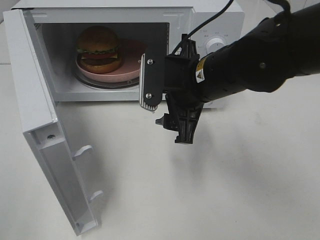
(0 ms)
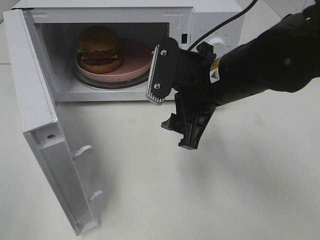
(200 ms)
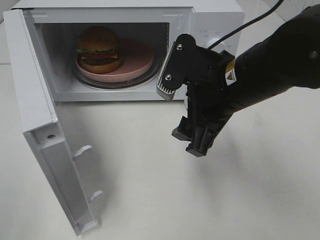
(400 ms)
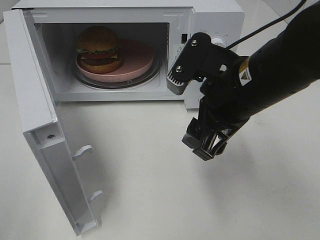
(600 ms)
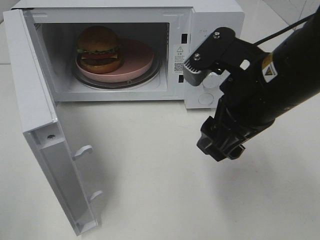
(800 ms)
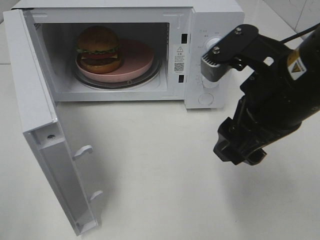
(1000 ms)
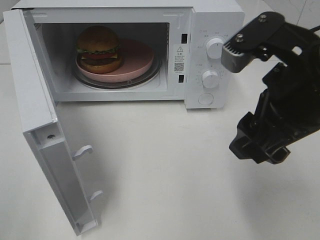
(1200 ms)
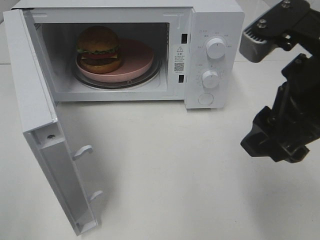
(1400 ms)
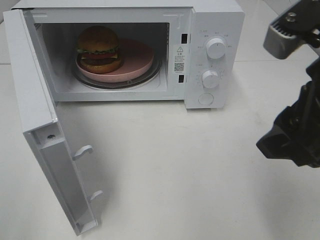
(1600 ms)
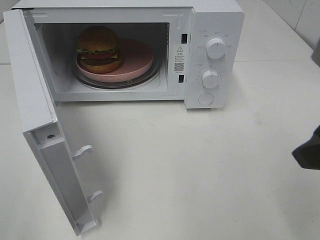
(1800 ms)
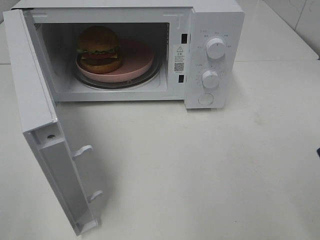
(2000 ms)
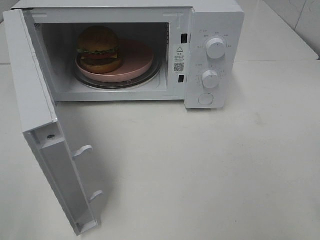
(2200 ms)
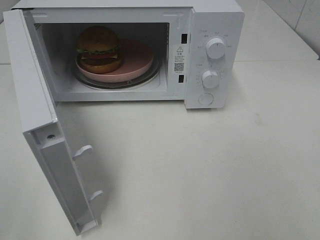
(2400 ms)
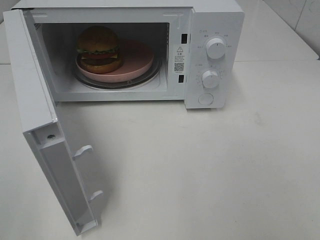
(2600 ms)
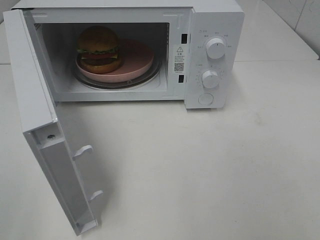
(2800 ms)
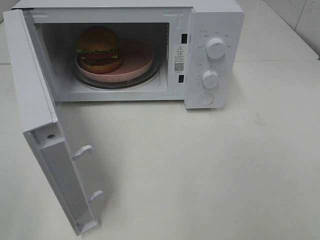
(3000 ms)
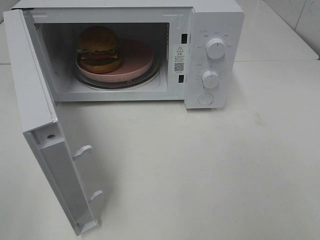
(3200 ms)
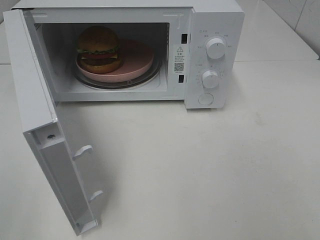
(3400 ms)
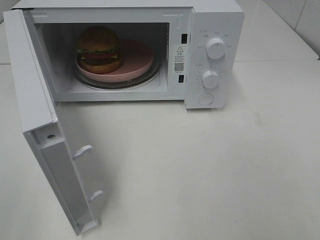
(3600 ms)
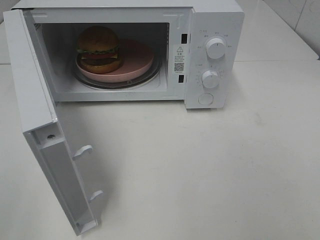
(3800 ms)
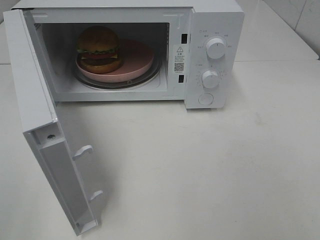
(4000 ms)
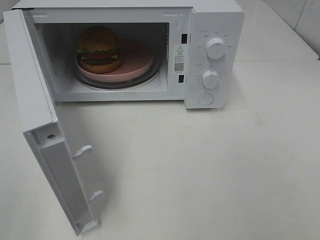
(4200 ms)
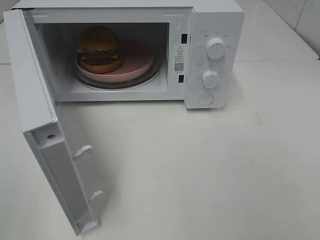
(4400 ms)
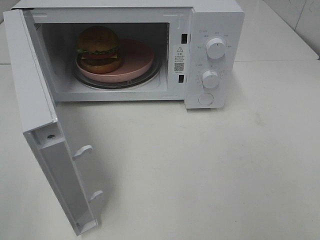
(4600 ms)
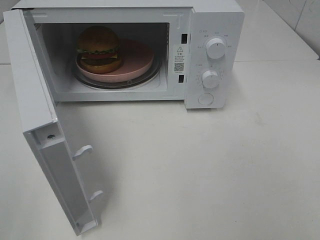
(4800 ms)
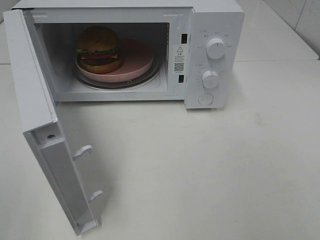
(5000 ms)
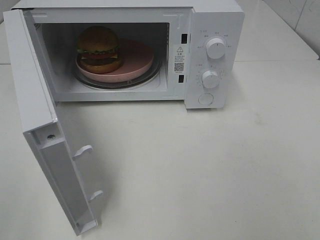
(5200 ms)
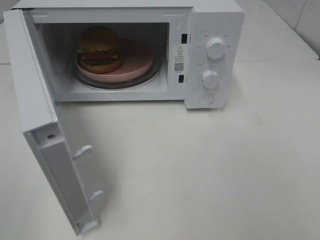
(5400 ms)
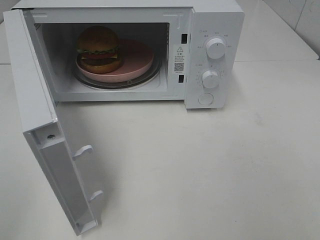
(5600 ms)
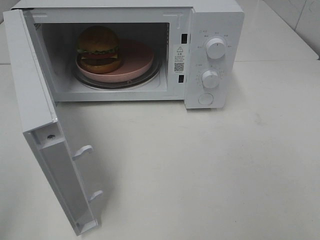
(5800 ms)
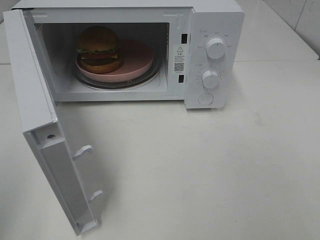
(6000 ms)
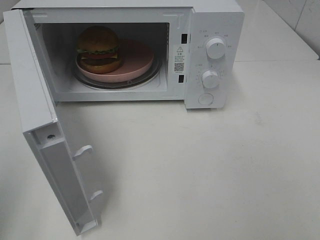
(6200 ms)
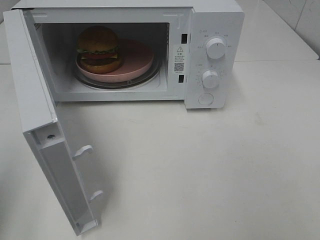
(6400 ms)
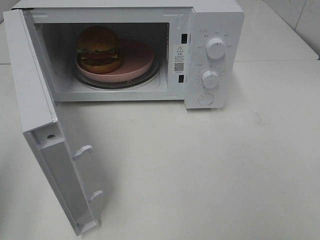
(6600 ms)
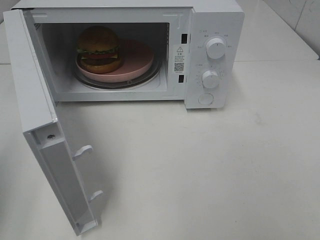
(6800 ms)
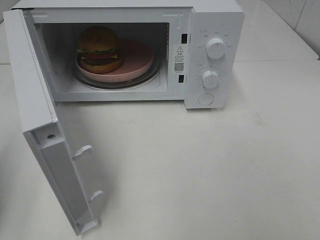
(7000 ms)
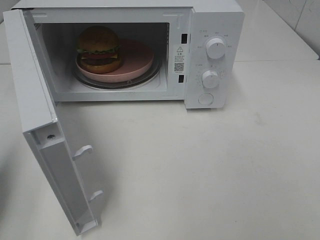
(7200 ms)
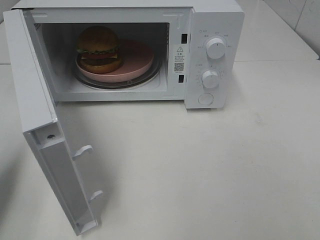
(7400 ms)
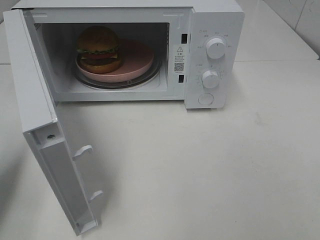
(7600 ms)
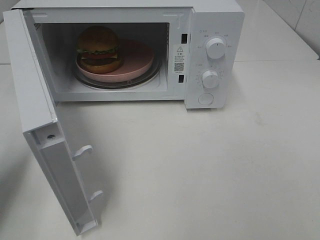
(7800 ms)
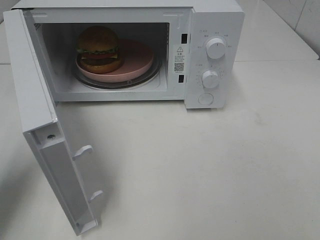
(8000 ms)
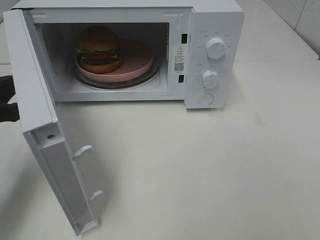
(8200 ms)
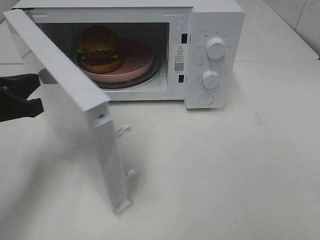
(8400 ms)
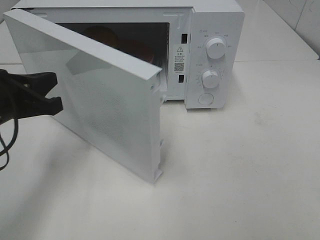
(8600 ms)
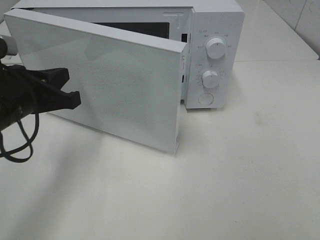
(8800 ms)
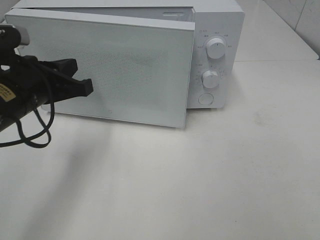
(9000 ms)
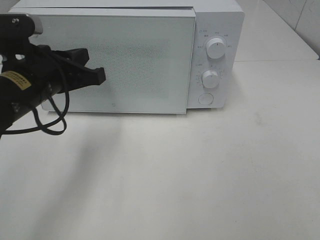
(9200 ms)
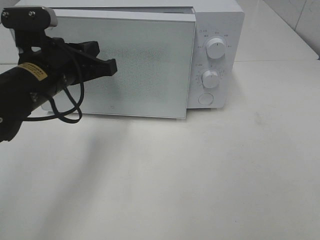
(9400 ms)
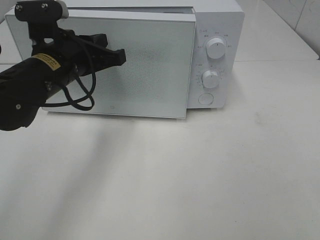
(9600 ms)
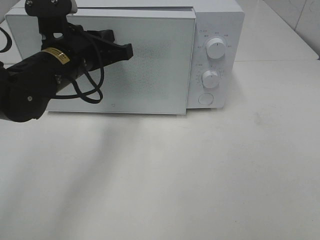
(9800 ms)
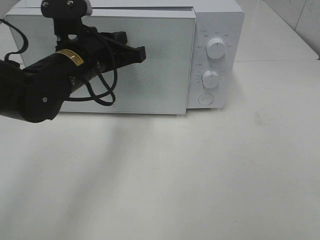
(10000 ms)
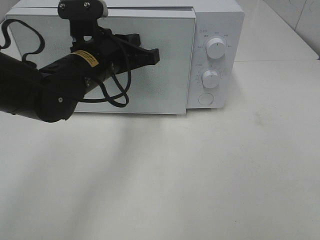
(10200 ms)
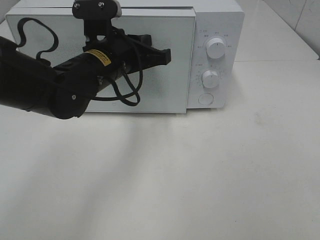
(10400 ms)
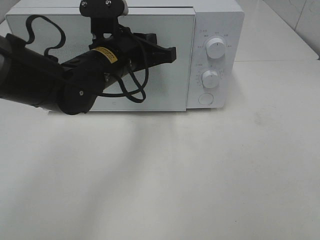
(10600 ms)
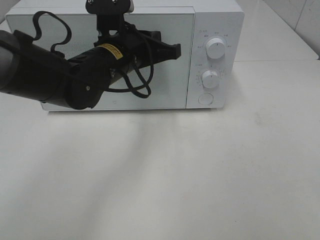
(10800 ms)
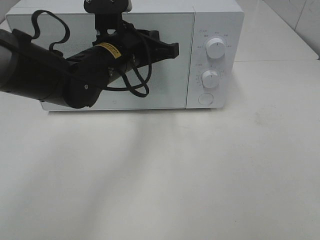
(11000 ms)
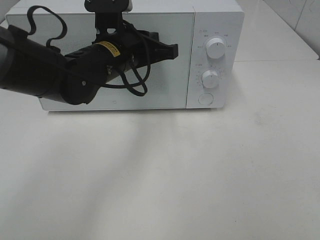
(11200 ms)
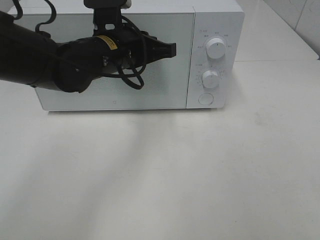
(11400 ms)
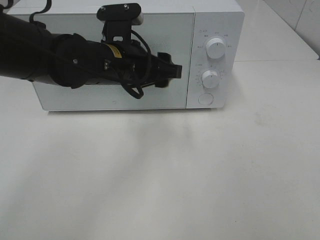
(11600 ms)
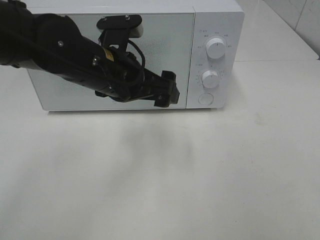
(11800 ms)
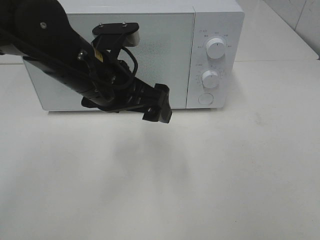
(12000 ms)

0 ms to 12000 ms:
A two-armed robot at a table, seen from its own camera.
Task of the whole recording: Heat the burger.
Step, 0 ms to 11400 ms: Left hand: close the microwave door.
0 ms to 1600 ms: The right gripper goes roughly 20 cm backward, to the right and upward.
1600 ms to 3000 ms: The right gripper travels backward and to the right by about 20 cm.
3000 ms to 4400 ms: Both grippers stay about where they are.
6000 ms to 7600 ms: The left gripper goes approximately 15 cm forward and downward.
7600 ms to 9000 ms: The left gripper shifts roughly 15 cm to the right and forward.
9000 ms to 10400 ms: The left gripper shifts some 15 cm to the right and forward.
10400 ms to 12000 ms: The left gripper heads backward, covering roughly 5 cm, and opens its fingers.

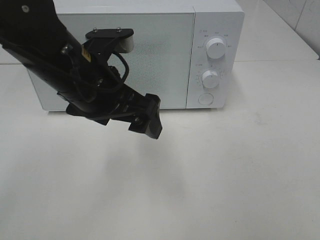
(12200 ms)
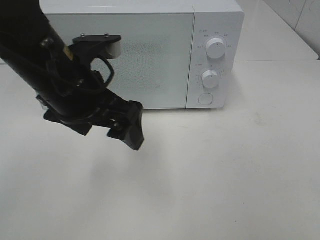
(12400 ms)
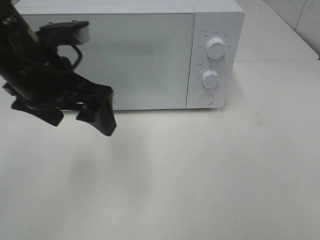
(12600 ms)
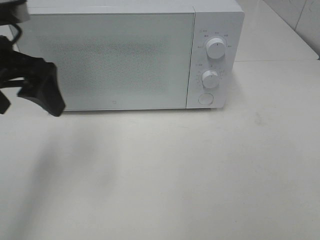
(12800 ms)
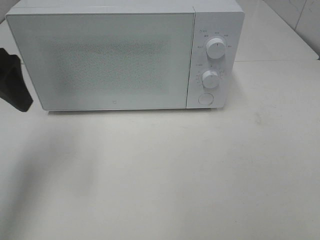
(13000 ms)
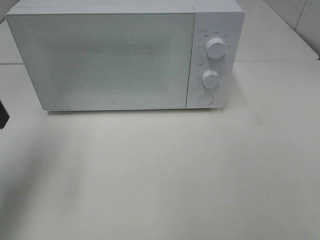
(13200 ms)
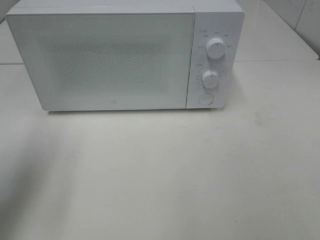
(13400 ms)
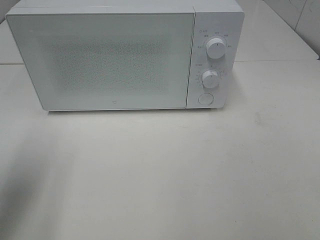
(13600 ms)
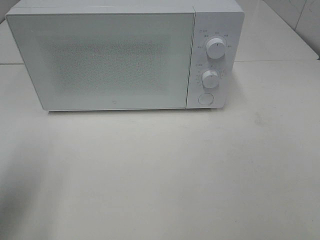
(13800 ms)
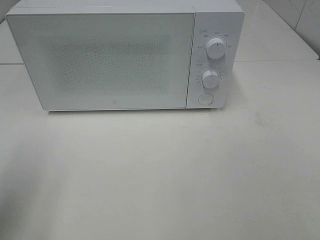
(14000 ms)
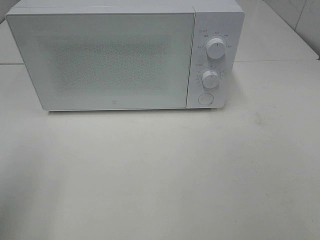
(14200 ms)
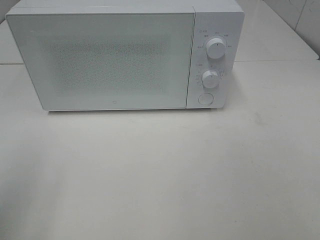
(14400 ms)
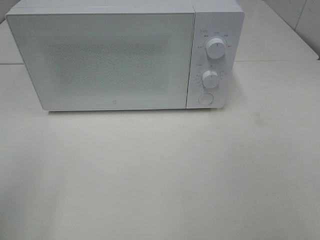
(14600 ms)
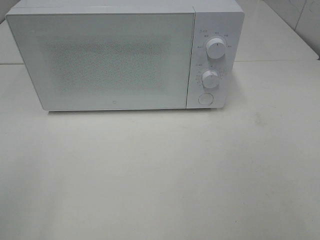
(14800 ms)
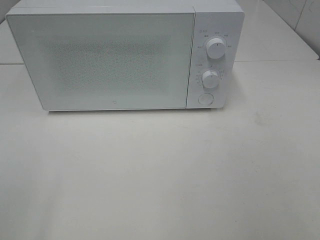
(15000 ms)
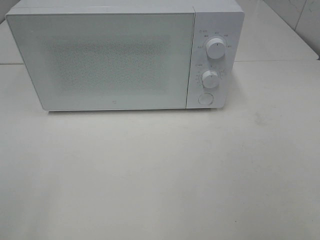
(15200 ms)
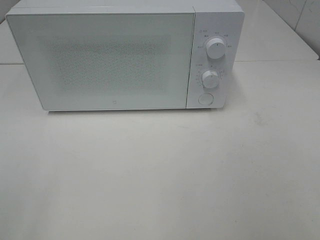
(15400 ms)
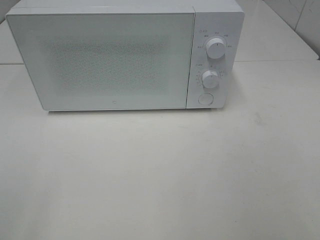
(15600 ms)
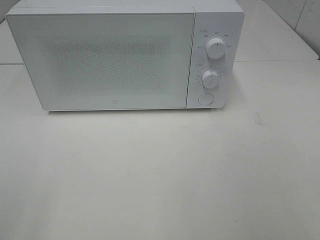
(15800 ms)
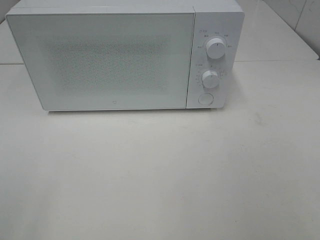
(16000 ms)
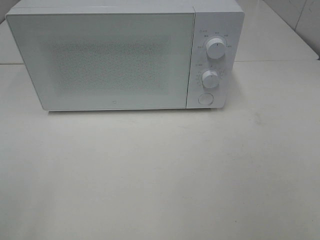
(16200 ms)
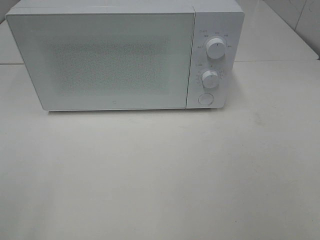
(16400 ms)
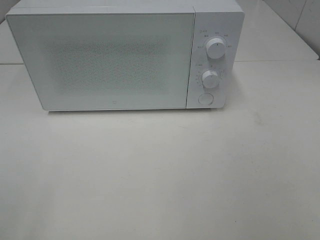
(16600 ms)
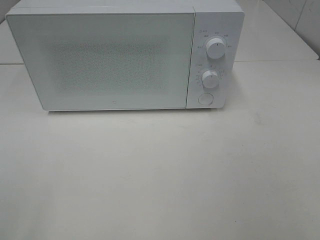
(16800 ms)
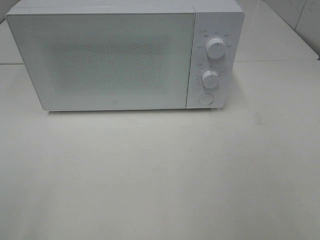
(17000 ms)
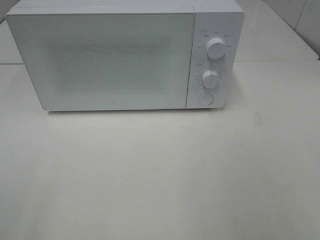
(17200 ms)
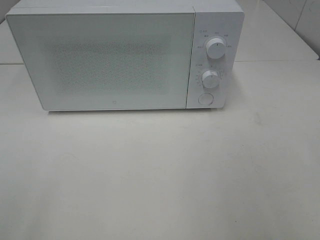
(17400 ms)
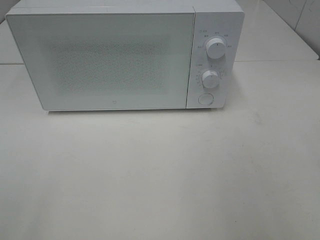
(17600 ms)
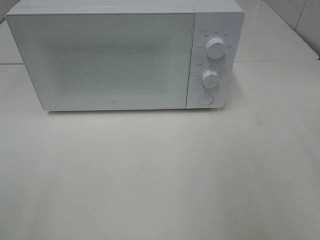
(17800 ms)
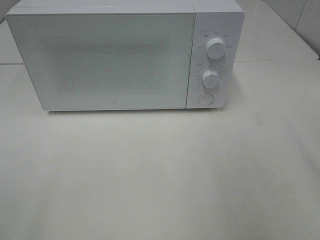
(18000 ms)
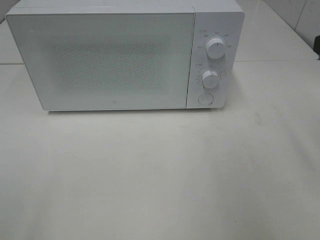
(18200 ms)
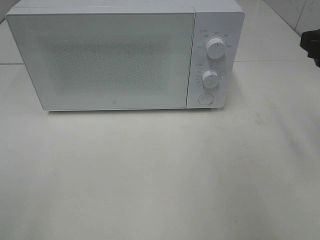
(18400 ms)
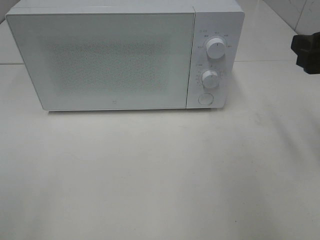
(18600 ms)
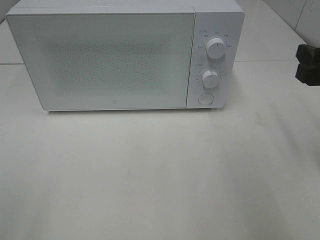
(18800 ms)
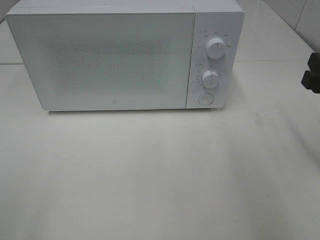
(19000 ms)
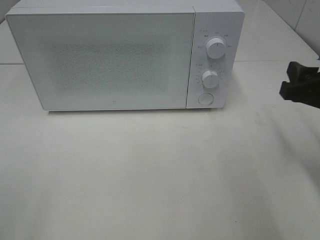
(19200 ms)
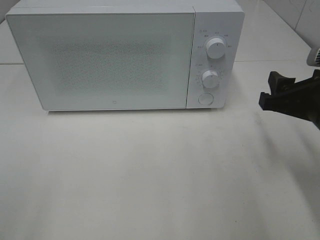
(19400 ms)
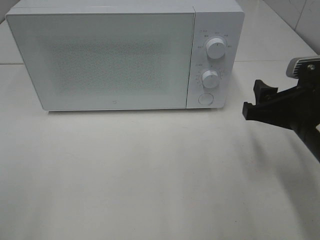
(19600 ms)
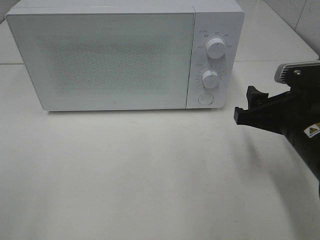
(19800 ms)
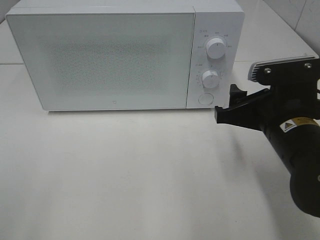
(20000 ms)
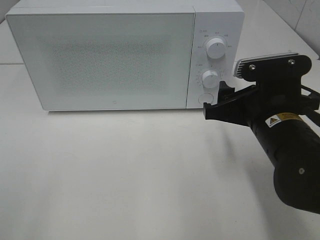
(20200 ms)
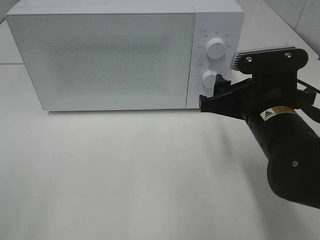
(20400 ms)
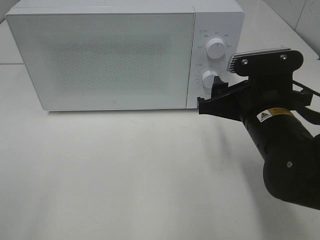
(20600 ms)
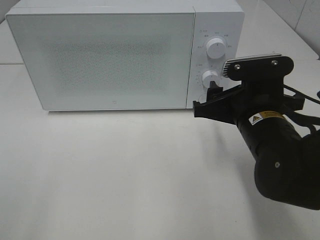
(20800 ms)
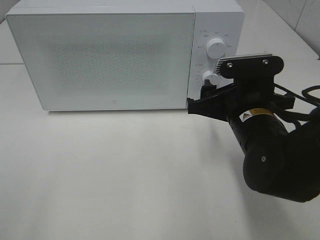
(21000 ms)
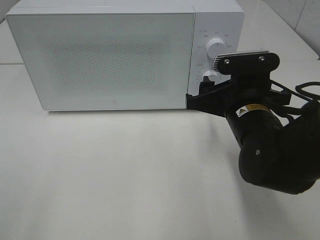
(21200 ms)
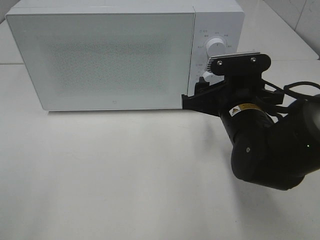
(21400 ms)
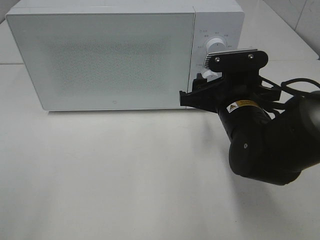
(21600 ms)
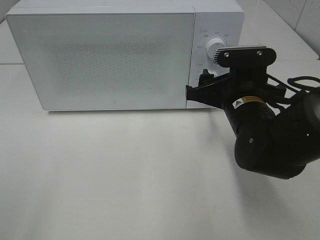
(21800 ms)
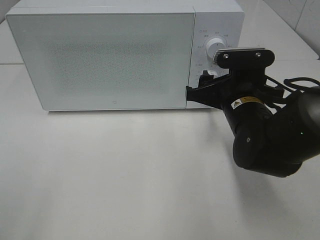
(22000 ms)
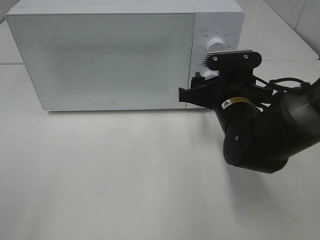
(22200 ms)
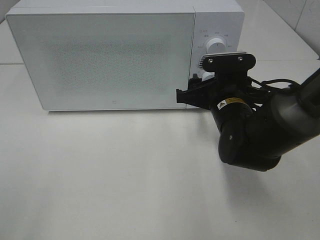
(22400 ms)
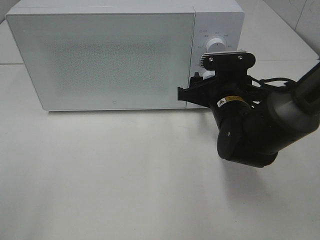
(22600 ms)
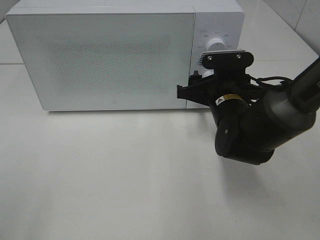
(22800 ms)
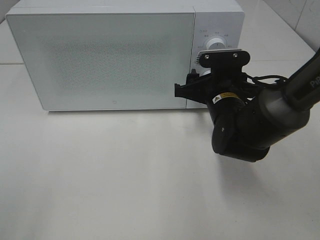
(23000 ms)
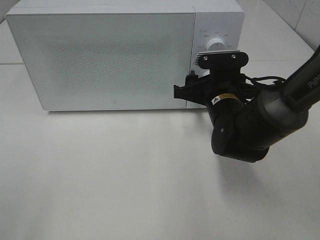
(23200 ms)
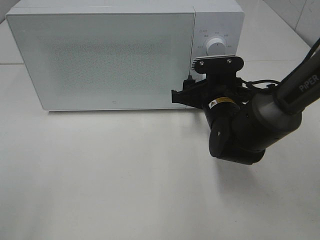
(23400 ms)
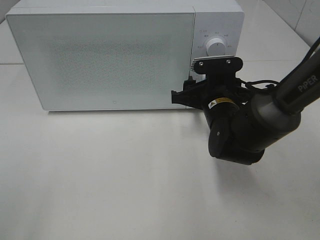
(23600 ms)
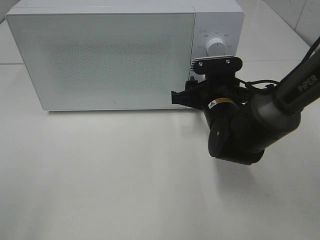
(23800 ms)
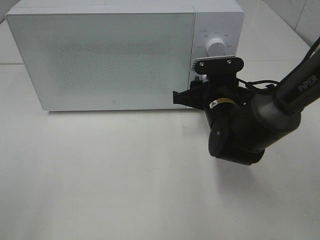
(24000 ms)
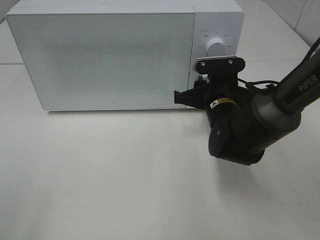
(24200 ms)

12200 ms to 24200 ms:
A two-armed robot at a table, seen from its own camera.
Task of the whole recording: Heat the burger.
12200 ms to 13800 ms: The left gripper travels to the left and backward by about 25 cm.
13800 ms to 15200 ms: The left gripper is displaced backward by roughly 15 cm.
15200 ms to 16600 ms: Neither gripper changes place.
18200 ms to 19800 ms: The right gripper is displaced downward and to the left by roughly 15 cm.
19800 ms to 21200 ms: The right gripper is displaced to the left by some 5 cm.
21200 ms to 22600 ms: The right gripper goes some 5 cm forward.
22600 ms to 24200 ms: The grippers move only a little.
